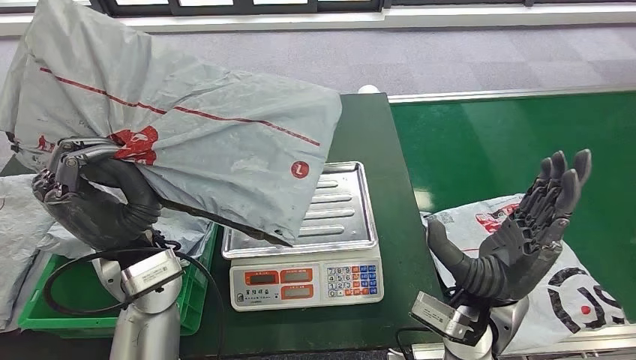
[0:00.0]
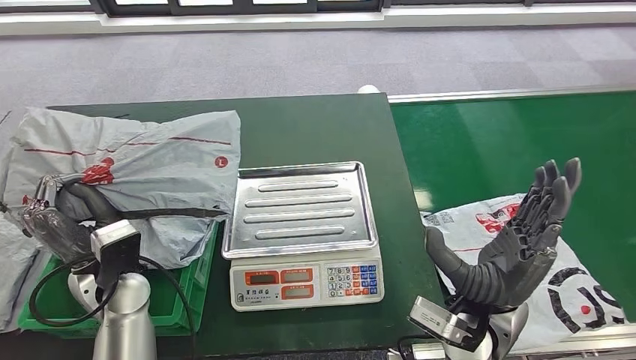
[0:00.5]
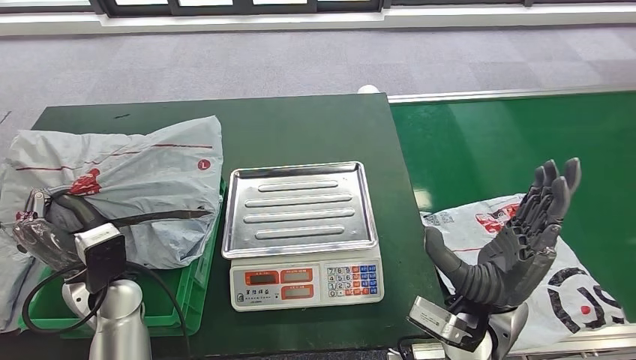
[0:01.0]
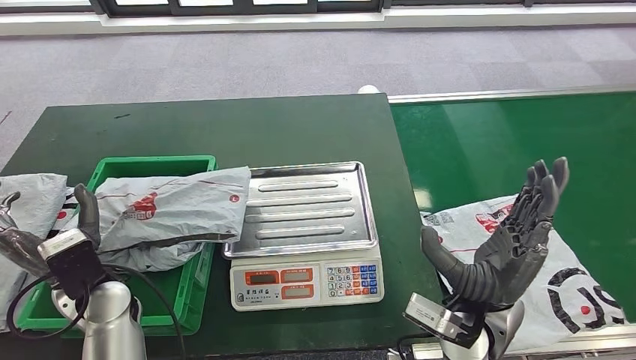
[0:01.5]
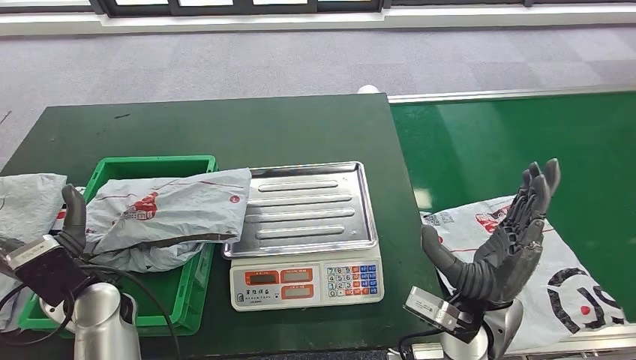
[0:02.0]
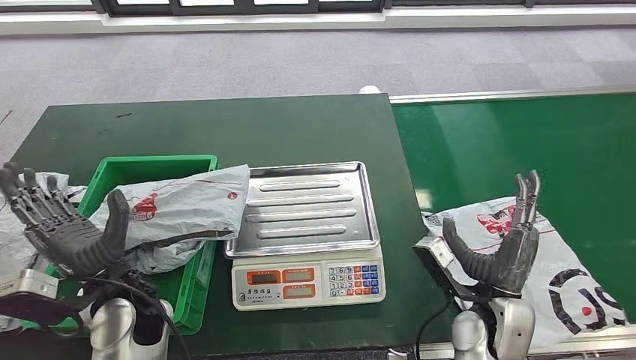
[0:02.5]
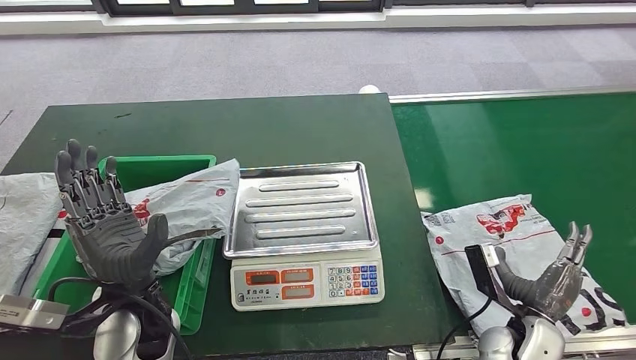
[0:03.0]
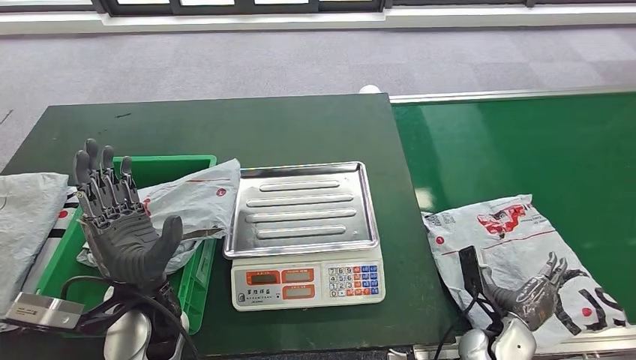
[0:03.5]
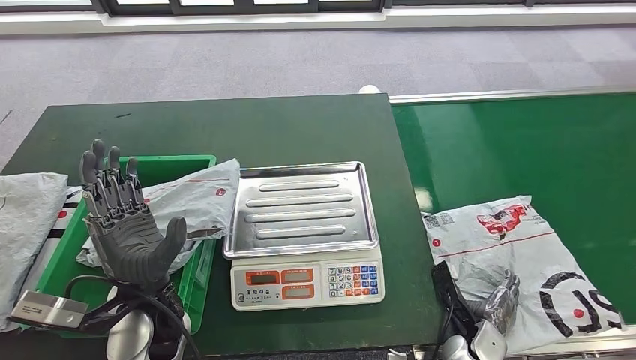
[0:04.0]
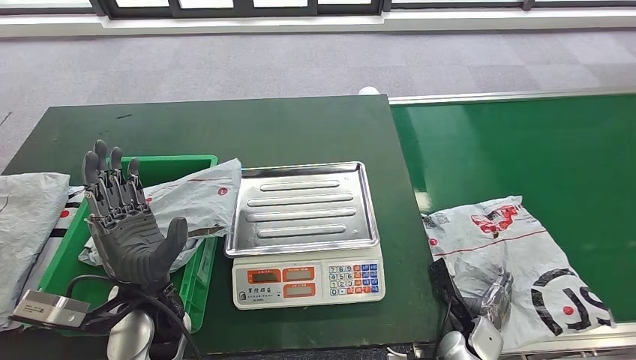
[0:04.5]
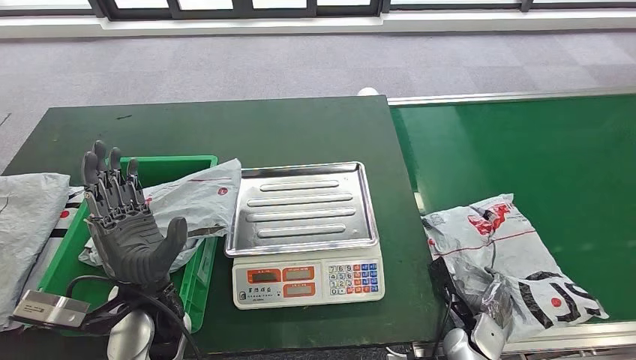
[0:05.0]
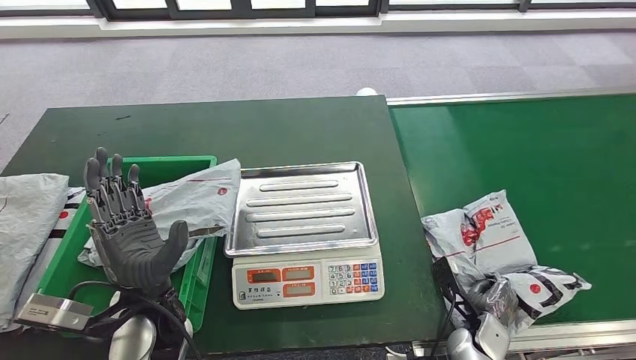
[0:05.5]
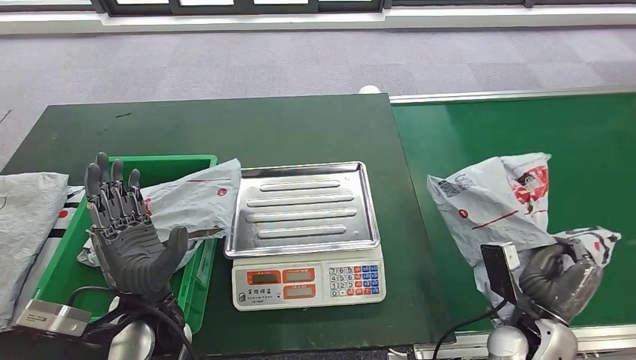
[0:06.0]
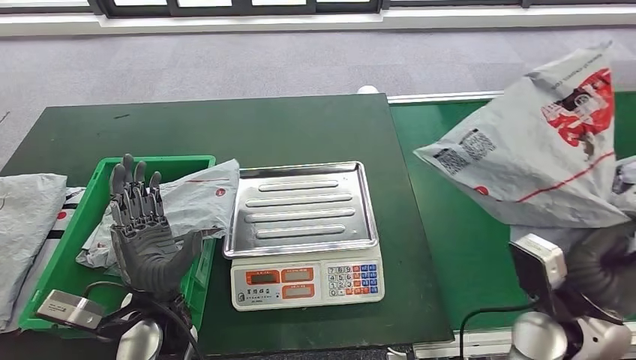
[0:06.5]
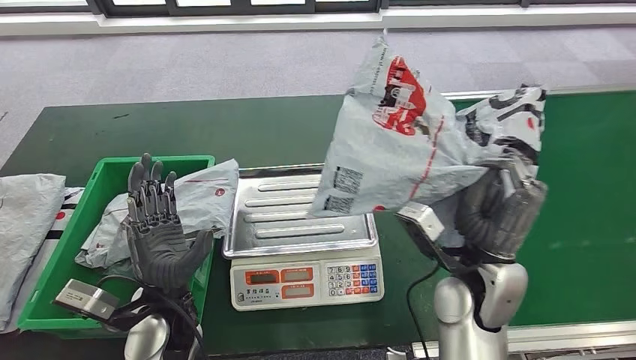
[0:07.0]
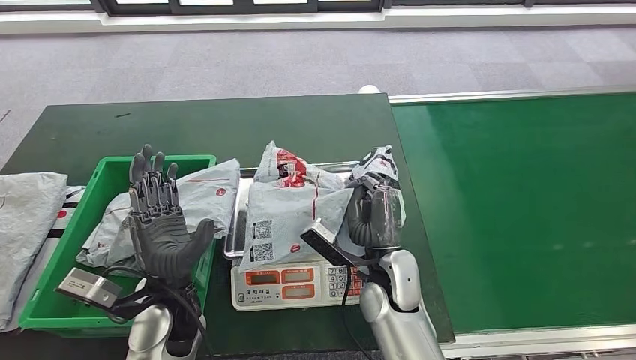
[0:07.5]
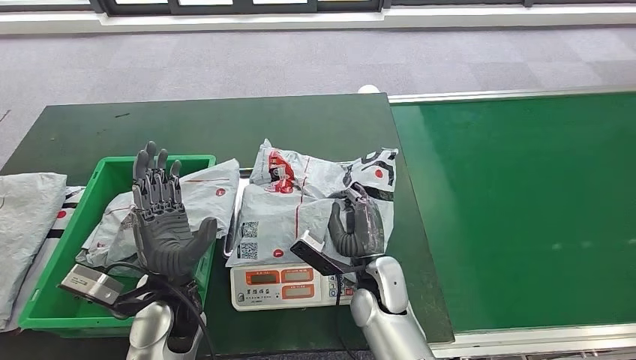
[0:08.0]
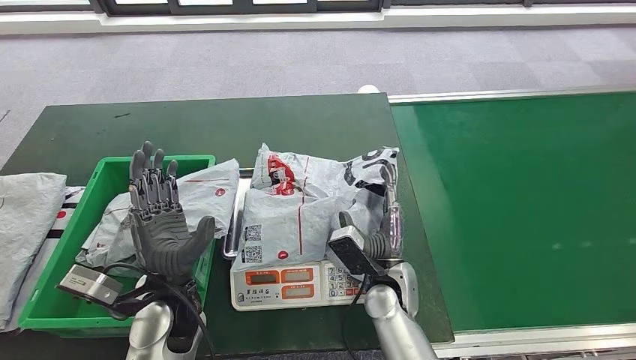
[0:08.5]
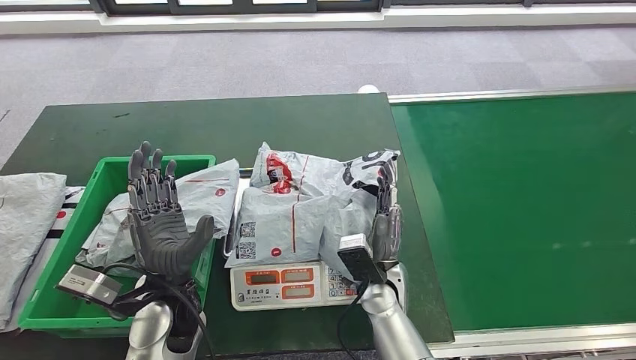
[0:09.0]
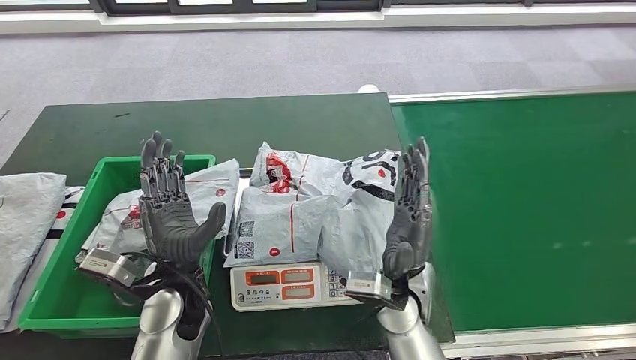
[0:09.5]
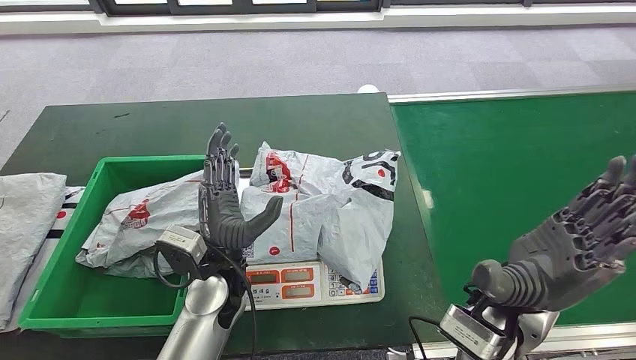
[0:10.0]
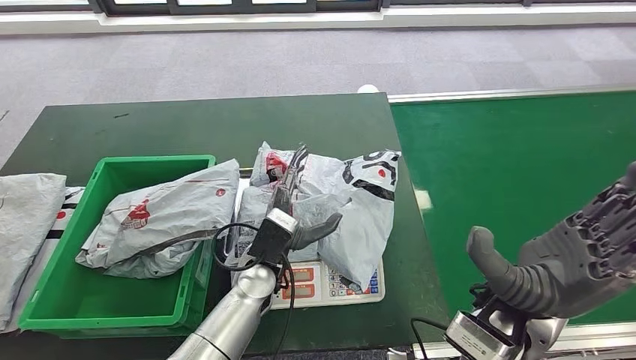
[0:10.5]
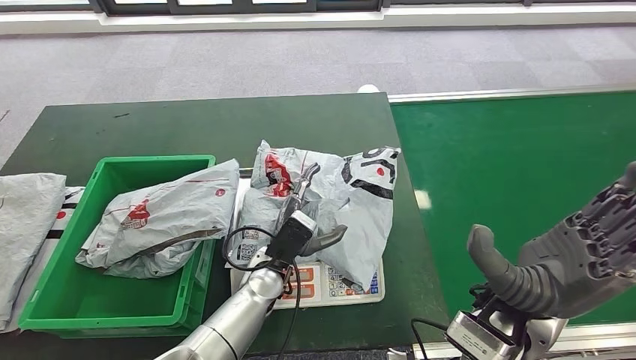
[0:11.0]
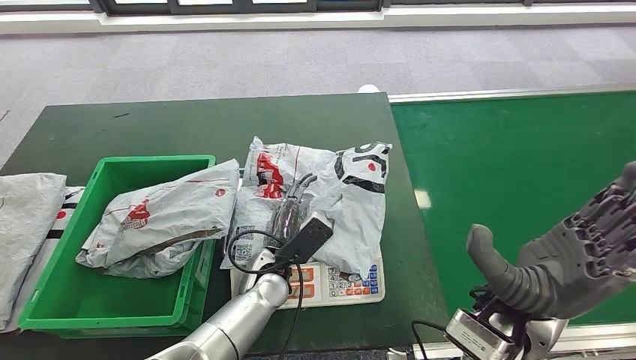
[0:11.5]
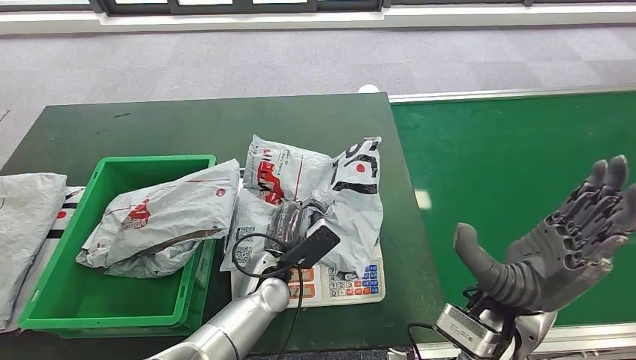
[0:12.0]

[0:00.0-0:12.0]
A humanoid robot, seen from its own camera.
Step, 0:00.5 to 0:03.0: Place the parcel into the delivery box.
Step, 0:03.5 to 0:06.5: Pick up the parcel from the conveyor belt.
Step, 0:07.0 to 0:09.0: Place the parcel onto the inbound machine.
0:04.0 to 0:06.0: The right hand is displaced upward by roughly 10 cm.
0:10.0 to 0:12.0: The left hand goes roughly 10 cm downward.

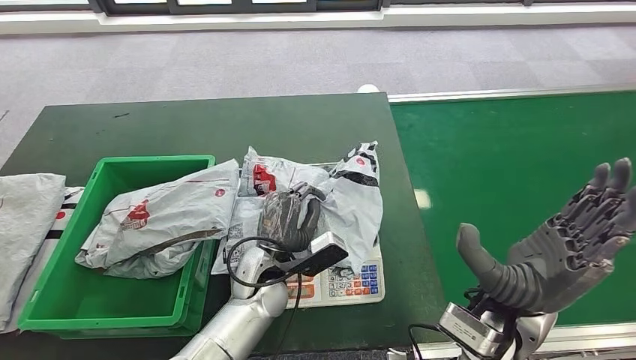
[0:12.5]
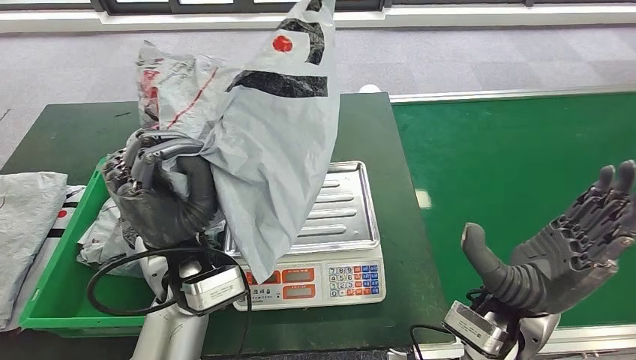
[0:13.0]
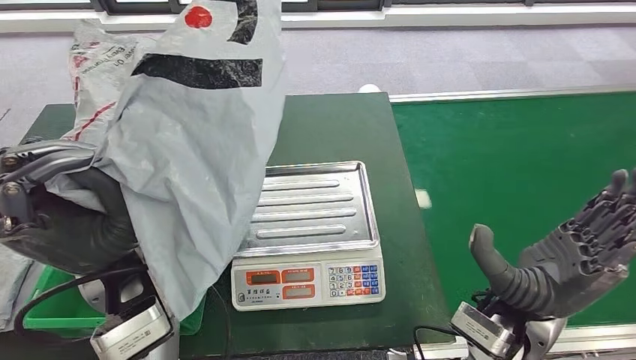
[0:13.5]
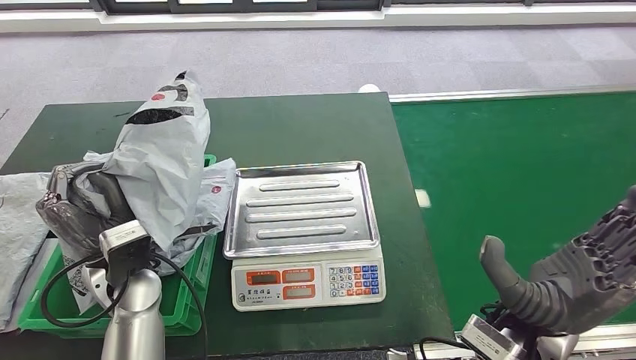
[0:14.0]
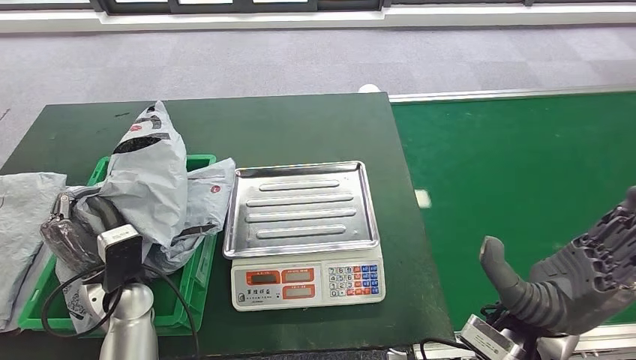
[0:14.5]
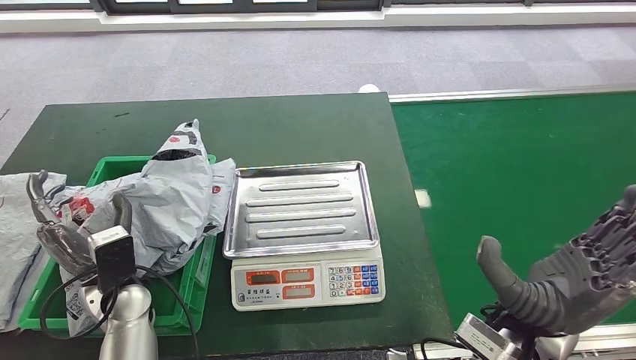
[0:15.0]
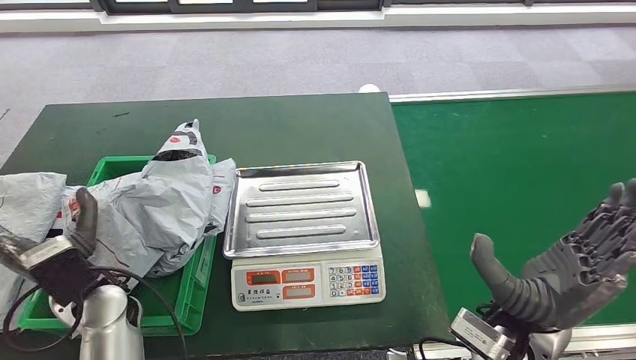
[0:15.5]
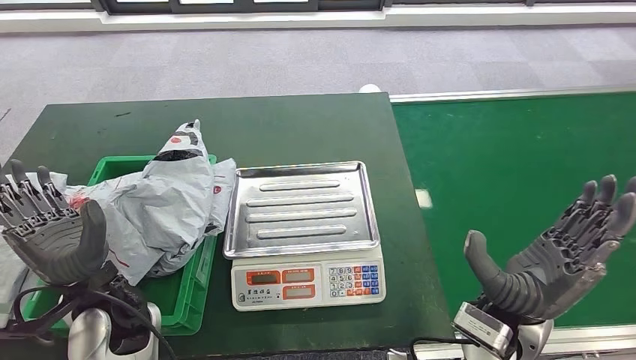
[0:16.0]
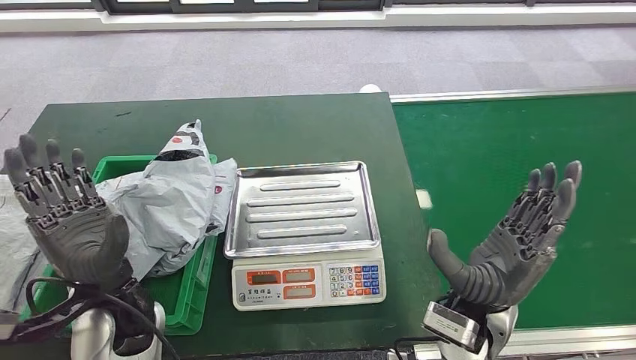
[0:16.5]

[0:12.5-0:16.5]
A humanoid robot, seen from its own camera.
Step, 0:13.0 to 0:16.5: Place the parcel into the delivery box.
0:14.5 to 0:16.5: The left hand moves upward, approximately 5 cm. Meanwhile the right hand moves roughly 5 cm.

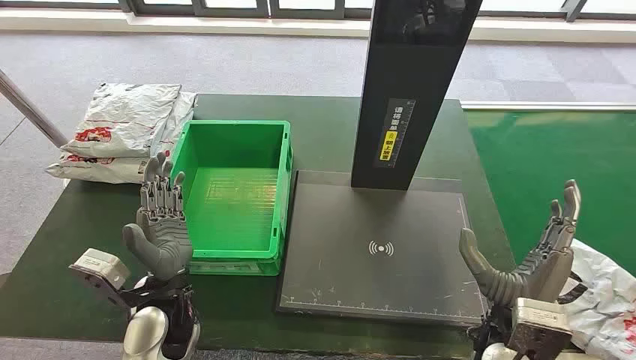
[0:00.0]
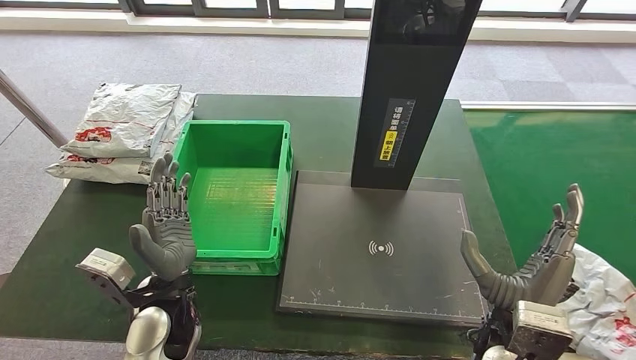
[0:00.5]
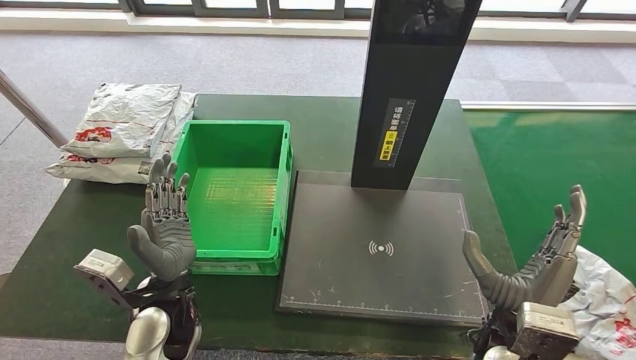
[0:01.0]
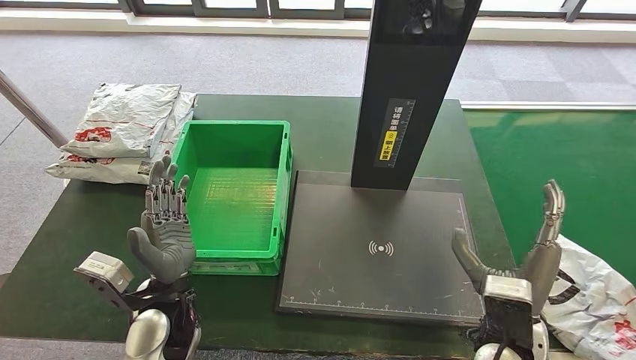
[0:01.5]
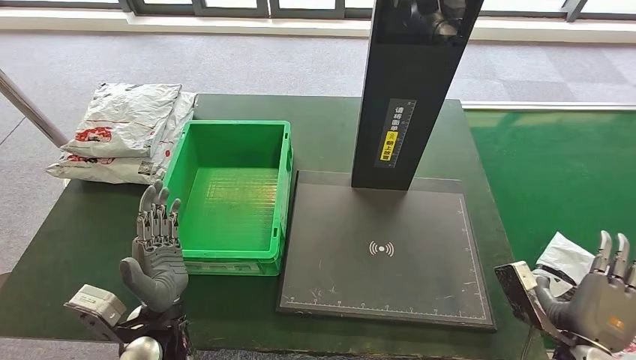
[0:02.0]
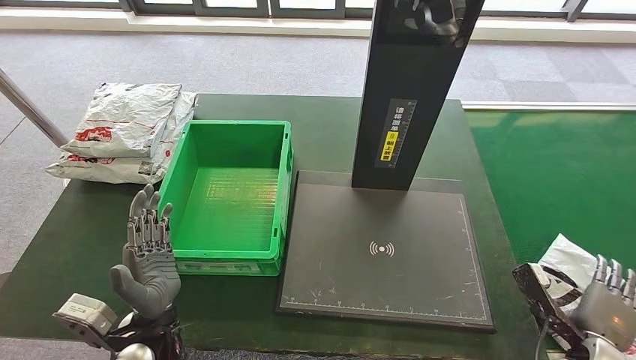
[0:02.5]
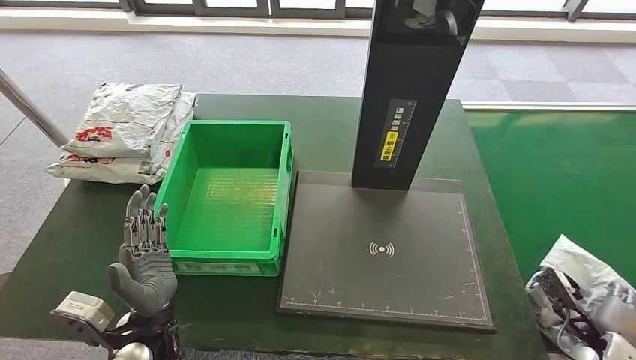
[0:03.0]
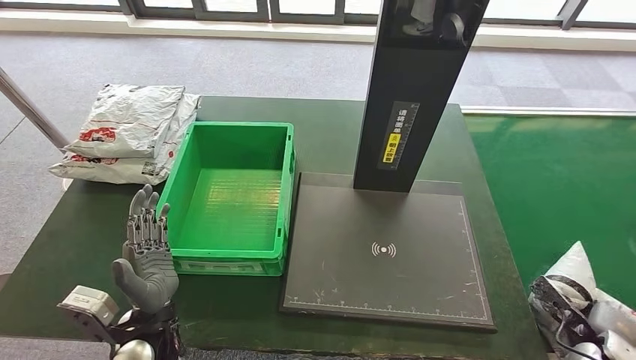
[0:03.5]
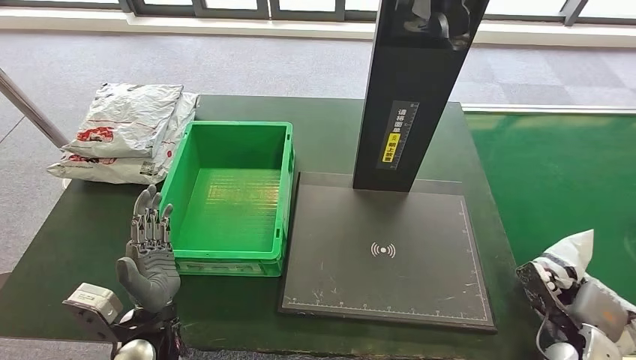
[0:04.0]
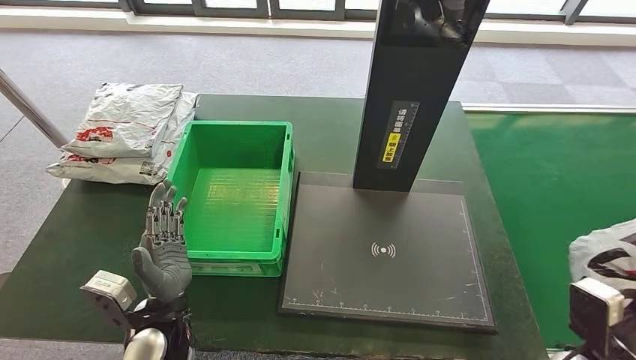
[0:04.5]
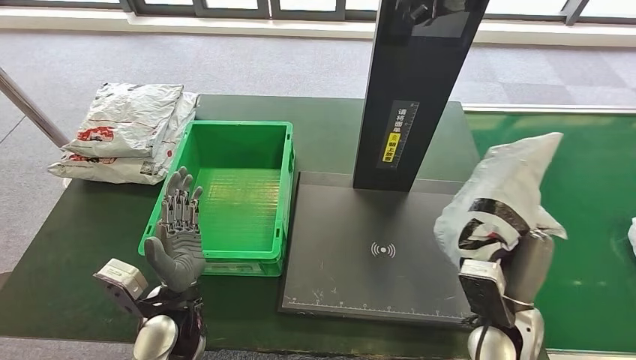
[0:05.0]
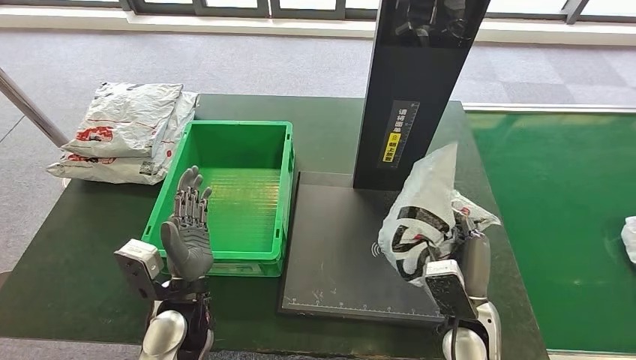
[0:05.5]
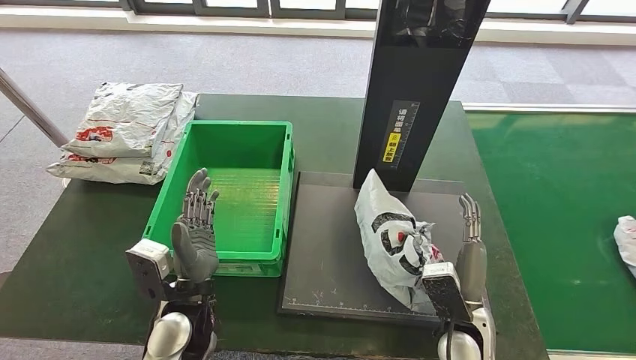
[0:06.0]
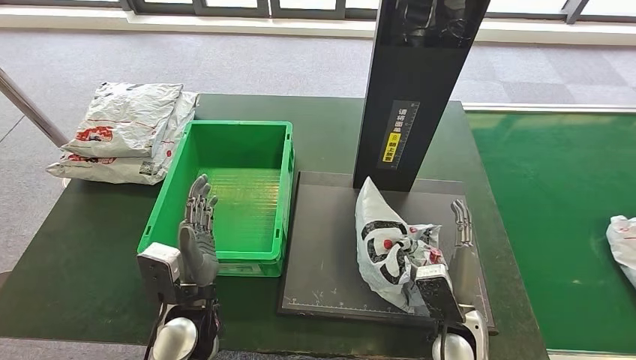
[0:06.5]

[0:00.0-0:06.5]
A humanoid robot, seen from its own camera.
Step, 0:00.0 to 0:05.0: Take the parcel off the conveyor belt.
0:02.0 to 0:04.5: The right hand moves roughly 15 cm to the right and comes back.
0:04.5 to 0:06.5: The right hand goes approximately 20 cm to the left.
